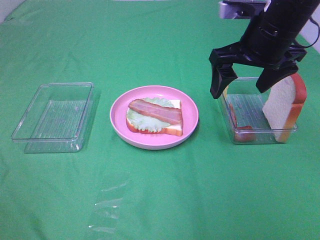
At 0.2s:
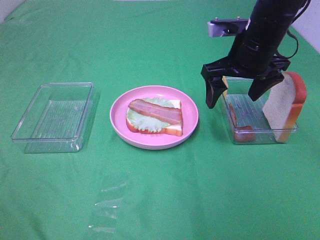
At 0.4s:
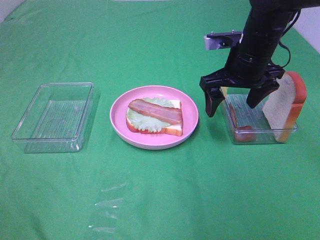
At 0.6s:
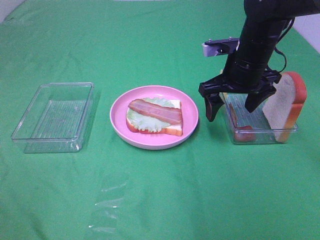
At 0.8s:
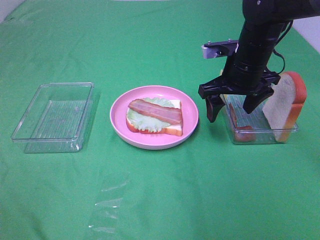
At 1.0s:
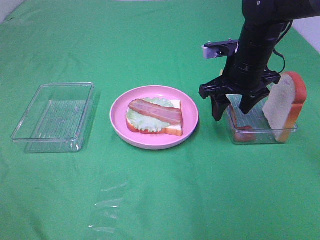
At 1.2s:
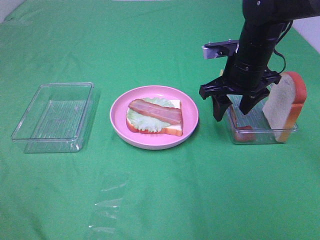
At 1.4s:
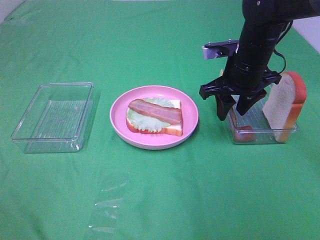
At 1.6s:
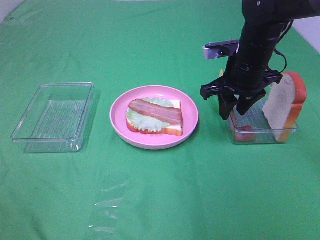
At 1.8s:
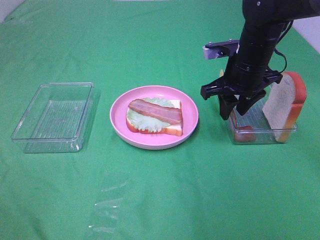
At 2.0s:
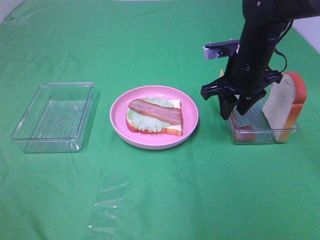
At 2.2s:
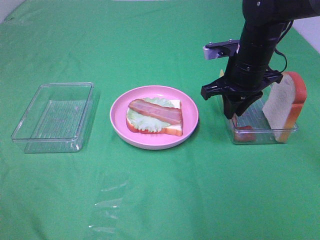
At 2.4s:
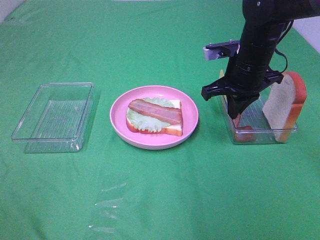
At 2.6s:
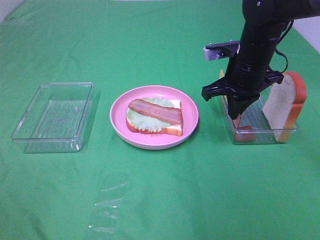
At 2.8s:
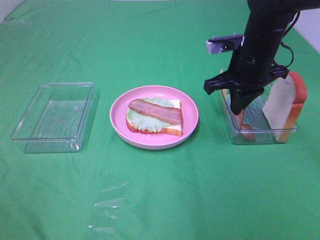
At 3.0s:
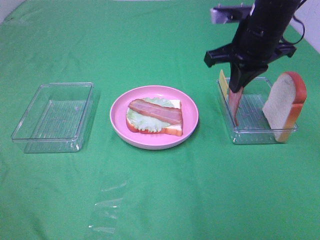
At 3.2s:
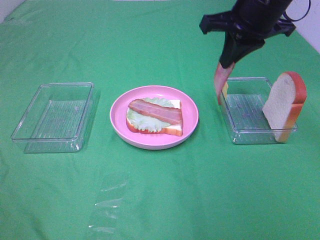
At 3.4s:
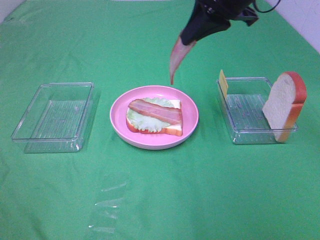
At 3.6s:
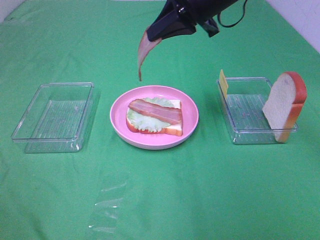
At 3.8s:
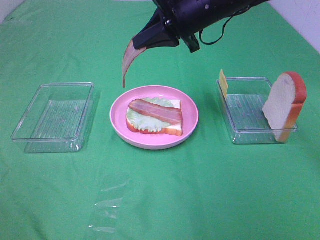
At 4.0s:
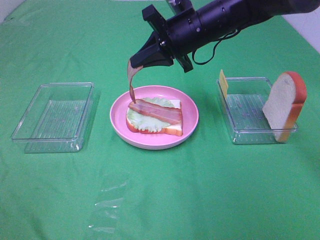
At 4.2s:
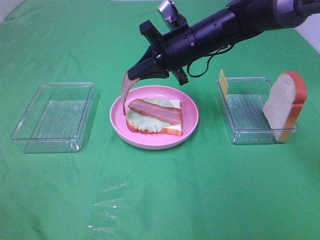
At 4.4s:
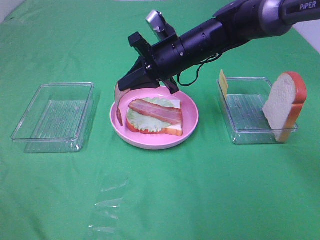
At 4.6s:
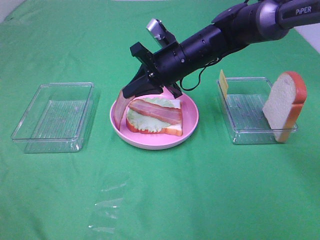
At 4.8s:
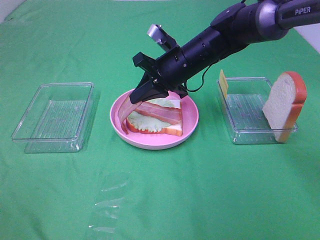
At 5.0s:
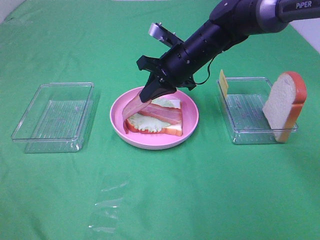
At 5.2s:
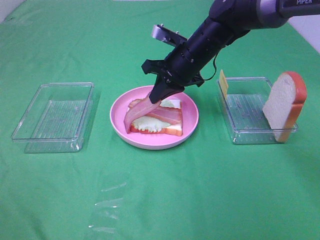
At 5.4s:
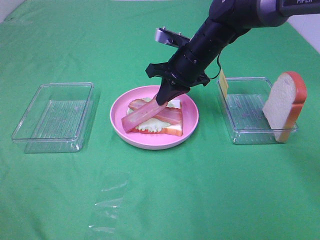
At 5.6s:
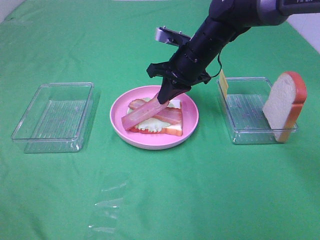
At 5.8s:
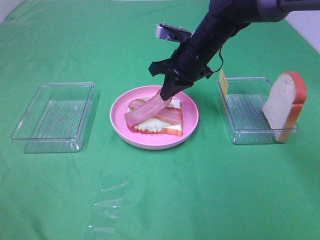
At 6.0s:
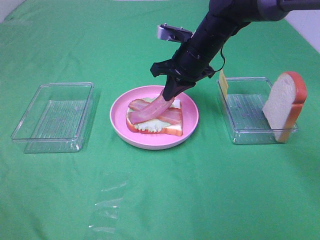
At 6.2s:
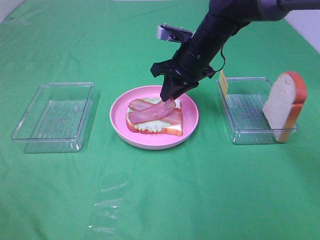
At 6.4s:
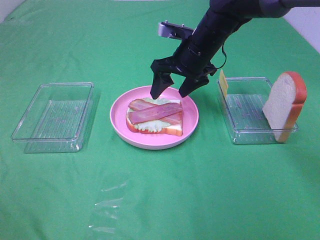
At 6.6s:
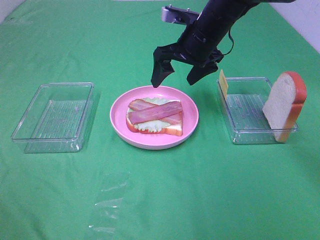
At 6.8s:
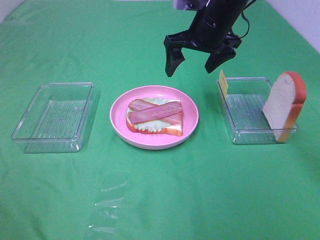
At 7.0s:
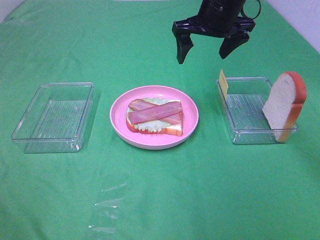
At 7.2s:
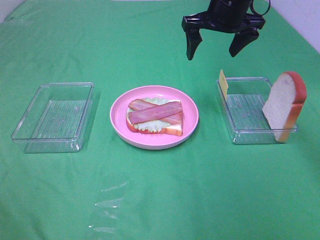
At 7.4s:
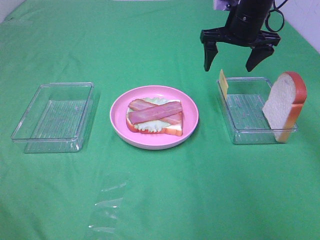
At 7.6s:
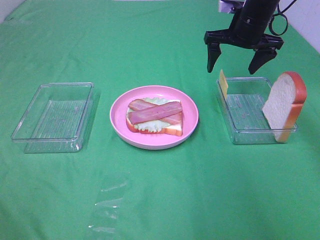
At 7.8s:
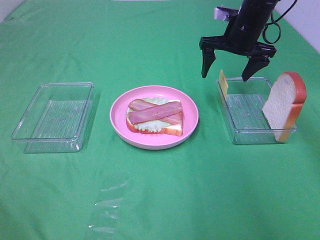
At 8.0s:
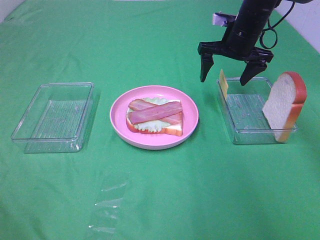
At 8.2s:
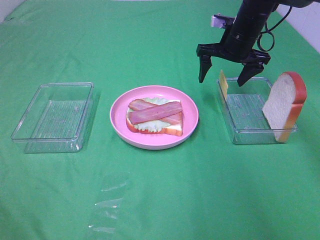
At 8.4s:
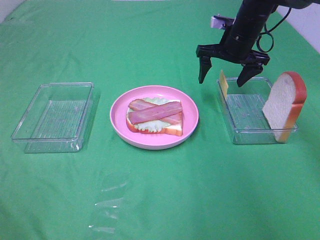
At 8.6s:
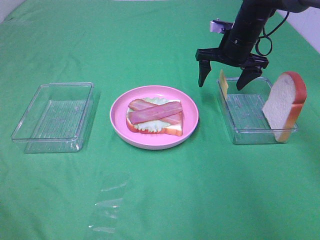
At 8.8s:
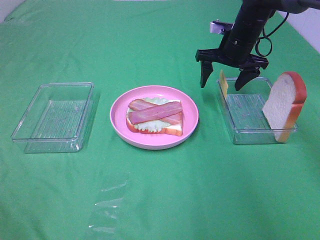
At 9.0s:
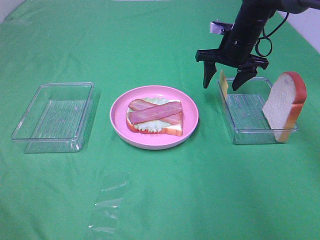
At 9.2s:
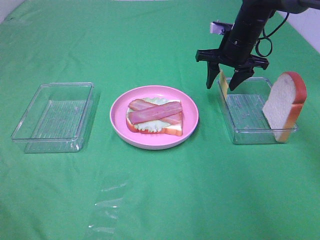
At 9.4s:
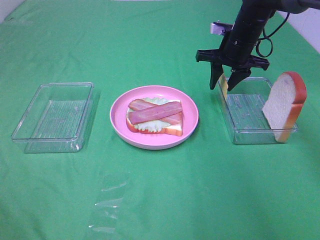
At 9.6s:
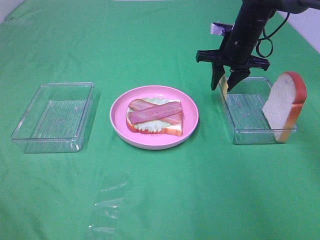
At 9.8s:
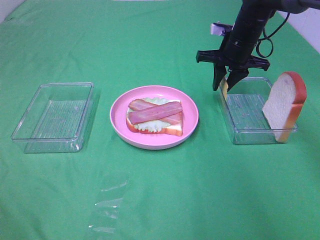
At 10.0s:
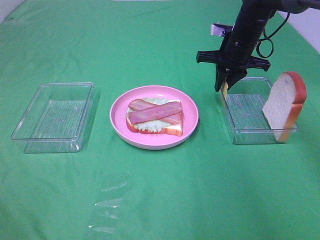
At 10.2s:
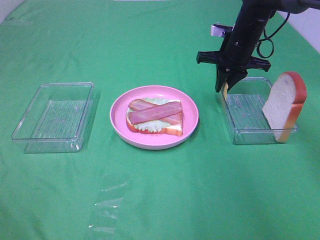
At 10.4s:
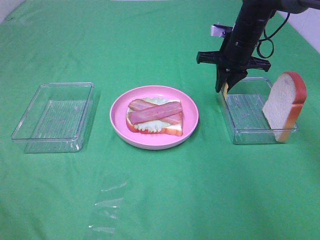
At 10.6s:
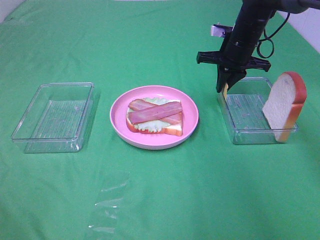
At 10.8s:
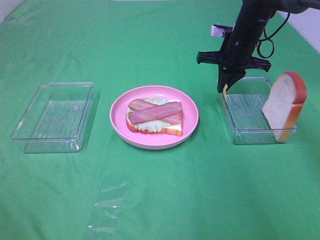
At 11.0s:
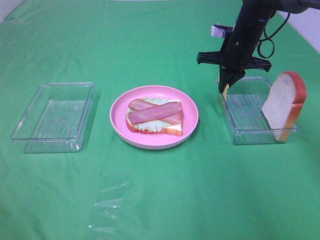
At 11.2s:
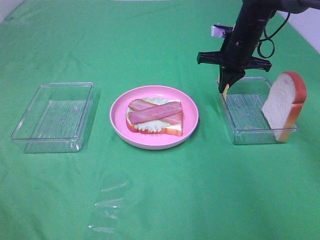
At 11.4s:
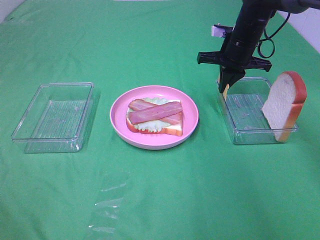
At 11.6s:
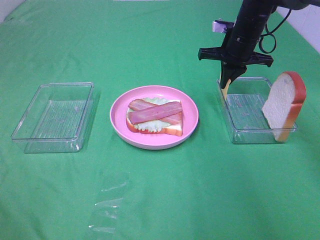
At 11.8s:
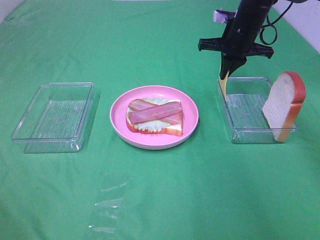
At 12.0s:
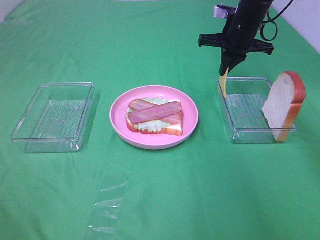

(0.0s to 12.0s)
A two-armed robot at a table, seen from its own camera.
Task of the whole recording: Make sandwiches.
Step, 0.0s - 2.6s: Right hand:grab the bacon.
Step, 2.8s - 6.4s: Right hand:place bacon on bacon.
Step, 6.6s - 11.0s: Right hand:grab the cheese slice.
0.0s - 1.6s: The right gripper travels downward by some 5 cm, and closes its fingers.
1.6s - 3.0s: The right gripper travels upward by roughly 10 cm, and closes its fingers.
3.0s - 4.4s: The right gripper goes about 15 cm to the left and downward.
6.0s - 7.6s: The right gripper goes roughly 10 cm to the right, and opens its fingers.
7.6s - 9.0s: The grippers make only small movements.
9.0s - 10.4s: The right gripper closes up.
10.4s - 12.0s: The grippers move only a little.

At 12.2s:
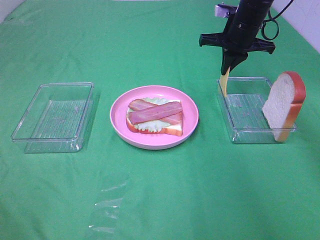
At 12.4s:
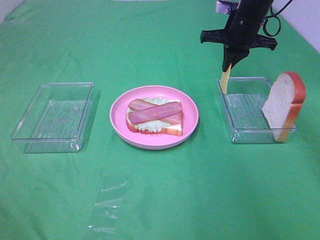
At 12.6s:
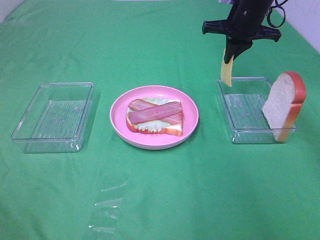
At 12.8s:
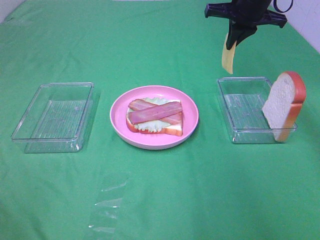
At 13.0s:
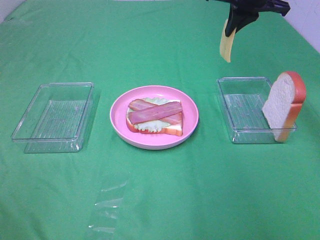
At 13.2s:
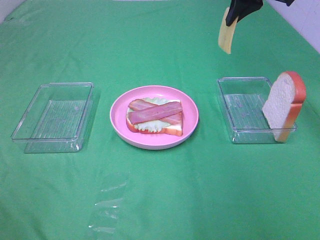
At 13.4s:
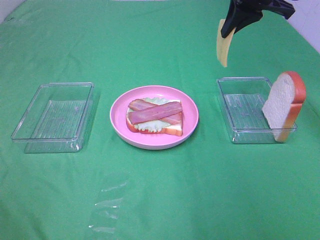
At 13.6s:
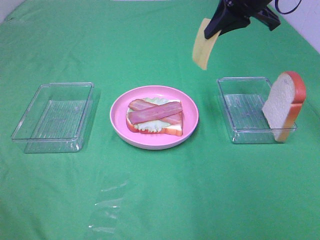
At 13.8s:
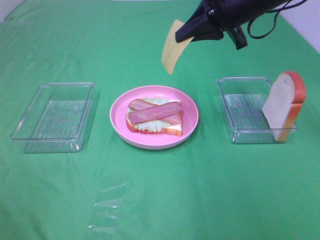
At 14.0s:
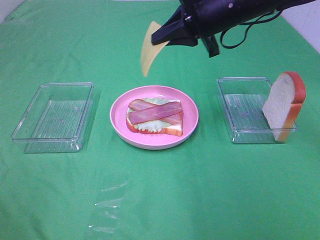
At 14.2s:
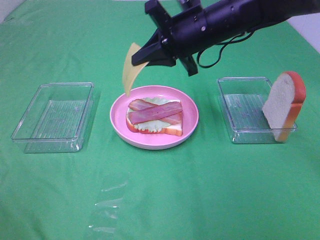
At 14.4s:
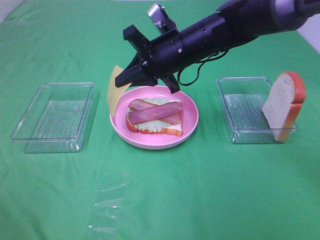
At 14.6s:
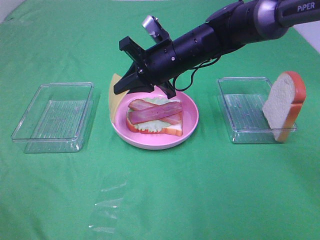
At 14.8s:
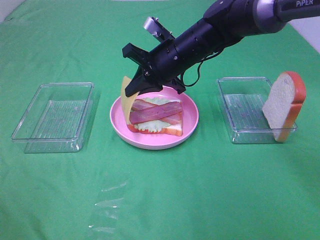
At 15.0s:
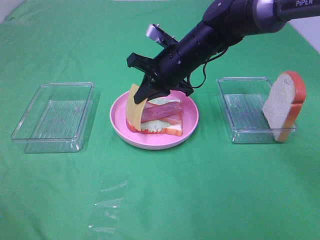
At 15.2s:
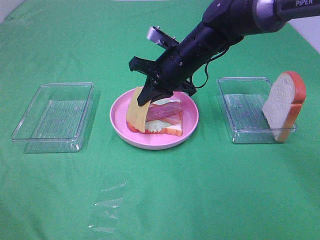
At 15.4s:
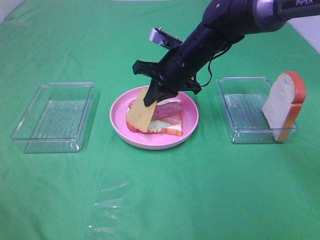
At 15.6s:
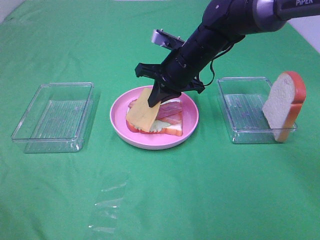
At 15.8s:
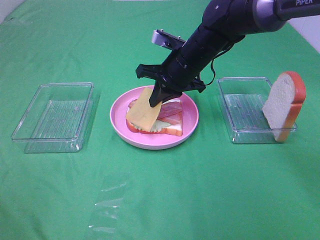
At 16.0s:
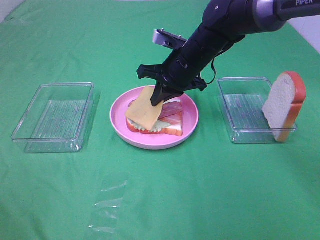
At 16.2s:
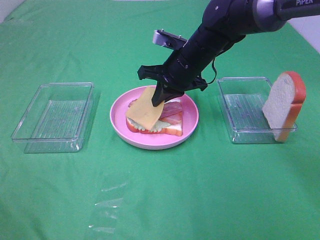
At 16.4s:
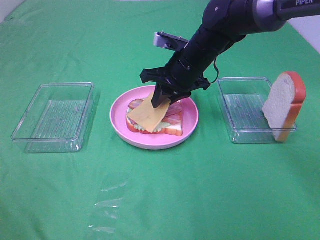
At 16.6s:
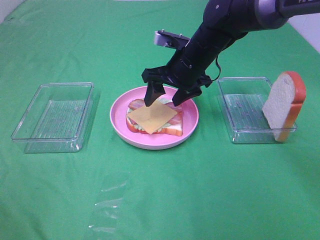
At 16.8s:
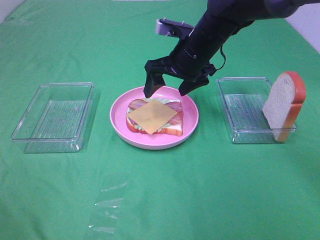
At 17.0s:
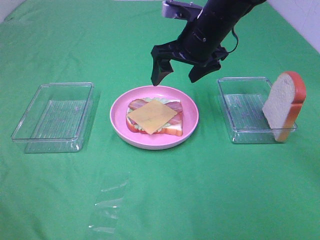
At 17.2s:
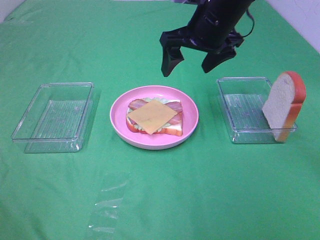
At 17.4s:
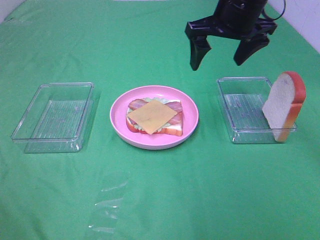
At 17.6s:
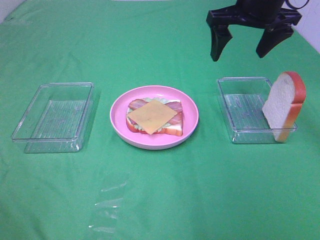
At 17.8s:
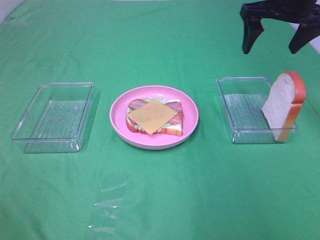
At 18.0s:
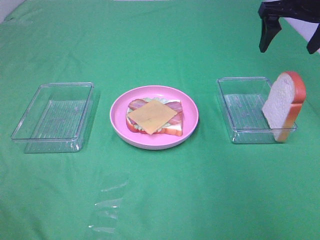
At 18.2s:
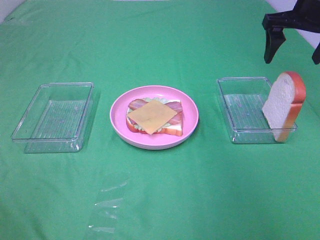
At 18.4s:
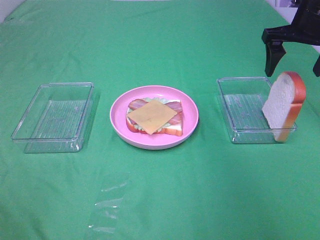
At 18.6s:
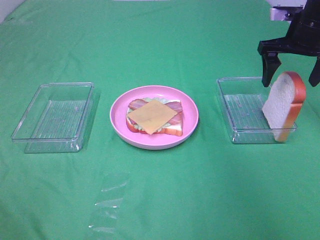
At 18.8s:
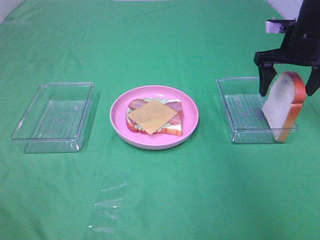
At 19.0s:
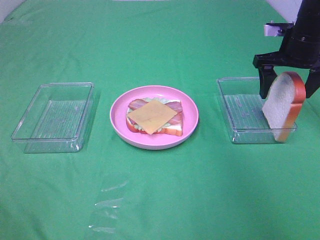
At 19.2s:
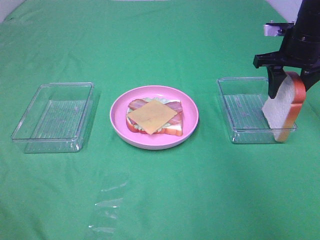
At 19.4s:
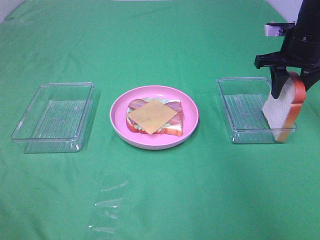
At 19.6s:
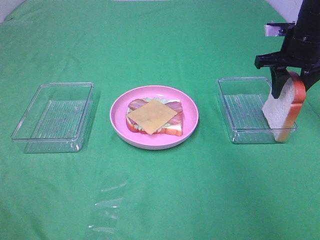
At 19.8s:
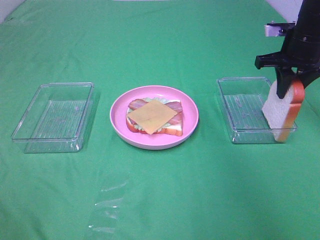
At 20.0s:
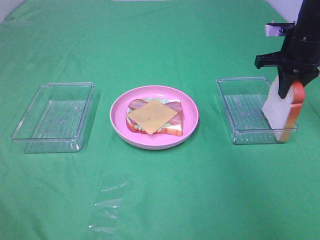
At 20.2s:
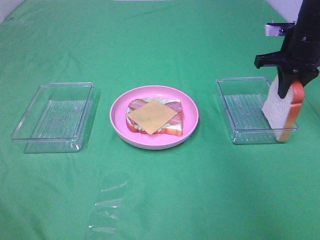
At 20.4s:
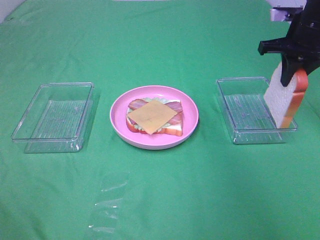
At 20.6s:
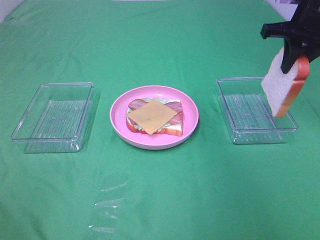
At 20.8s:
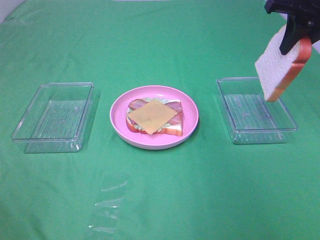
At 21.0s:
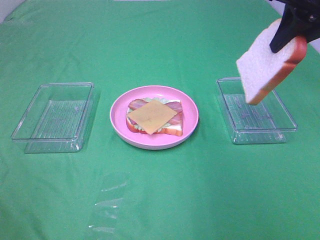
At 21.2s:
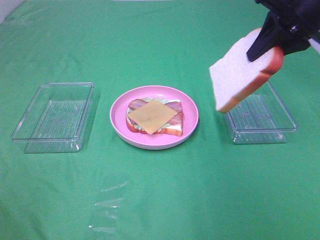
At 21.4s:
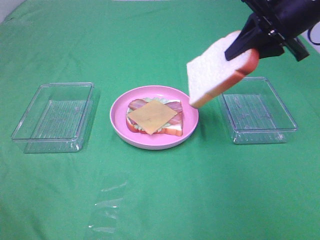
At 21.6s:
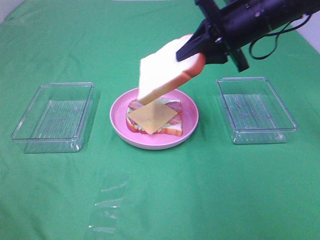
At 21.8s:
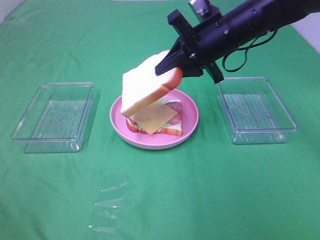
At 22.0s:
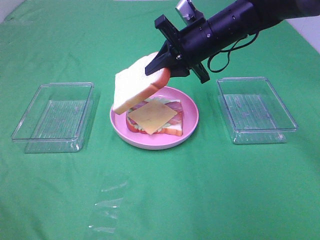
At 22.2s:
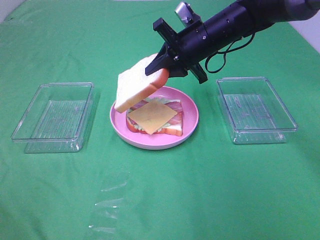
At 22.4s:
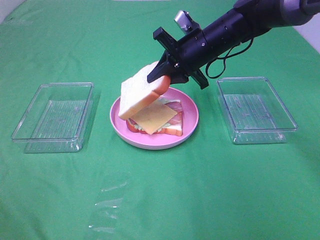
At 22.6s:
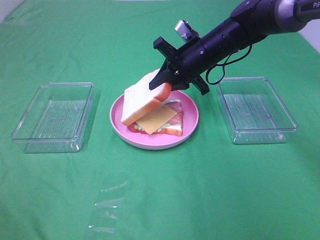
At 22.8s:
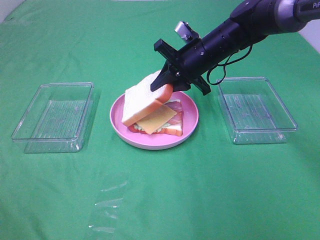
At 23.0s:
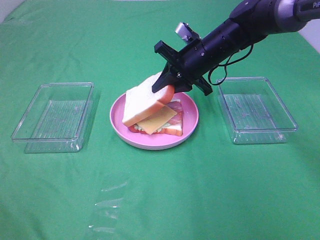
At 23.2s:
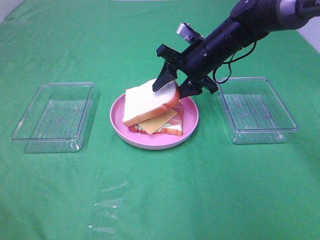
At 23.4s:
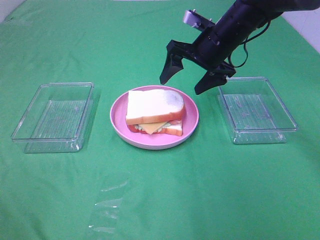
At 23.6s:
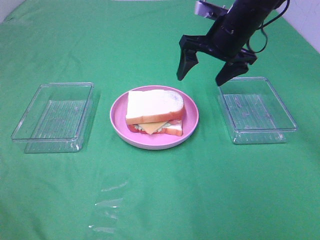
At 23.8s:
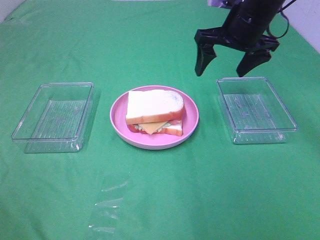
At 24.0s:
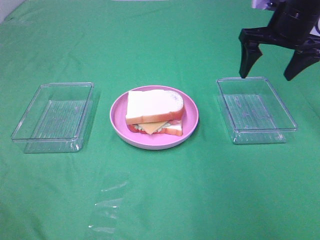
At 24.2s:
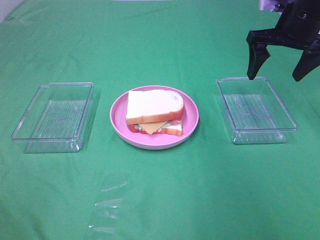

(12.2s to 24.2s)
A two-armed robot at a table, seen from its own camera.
Task of the whole recording: Make sandwiches.
Step, 12.2s - 16.6s: Right hand:place the cheese slice on top of the bacon.
Step, 16.8s - 20.0s: Right hand:grab the bread slice.
Step, 20.2s - 23.2s: Right hand:place the bread slice on the cheese slice.
12.2s - 13.8s: The right gripper shifts about 15 cm backward and upward.
13.8s - 15.2s: The right gripper moves downward and to the left, approximately 15 cm.
15.2s - 16.6s: The right gripper opens its fingers.
16.6s - 18.2s: The right gripper heads to the right and upward, covering some 25 cm.
18.2s - 19.8s: The right gripper goes roughly 5 cm downward, and closes its fingers.
19.8s - 21.2s: The right gripper goes roughly 10 cm upward and backward.
21.2s - 22.6s: The right gripper travels downward, to the left and forward by roughly 20 cm.
22.6s - 24.2s: The right gripper travels to the right and upward by roughly 15 cm, and opens up.
